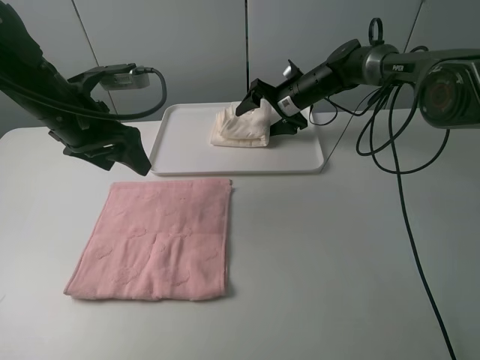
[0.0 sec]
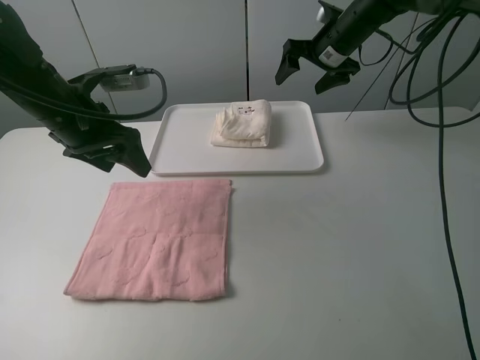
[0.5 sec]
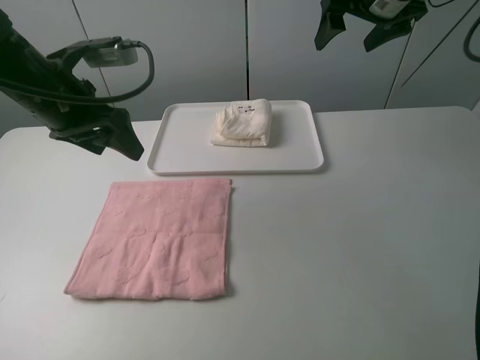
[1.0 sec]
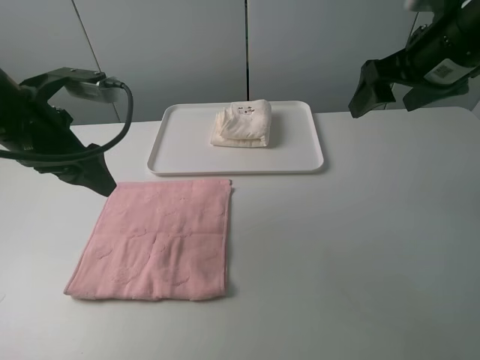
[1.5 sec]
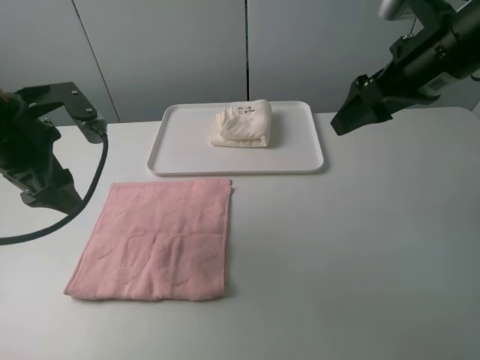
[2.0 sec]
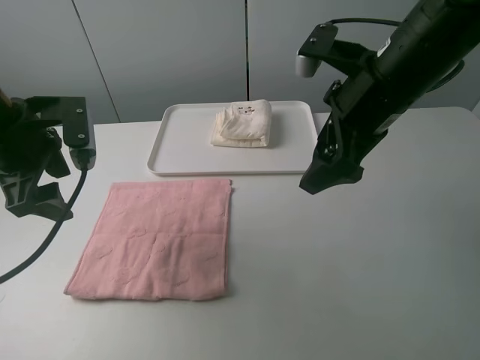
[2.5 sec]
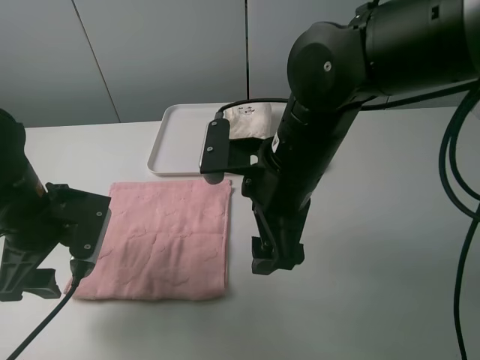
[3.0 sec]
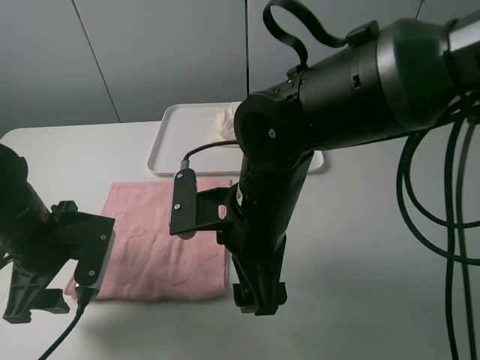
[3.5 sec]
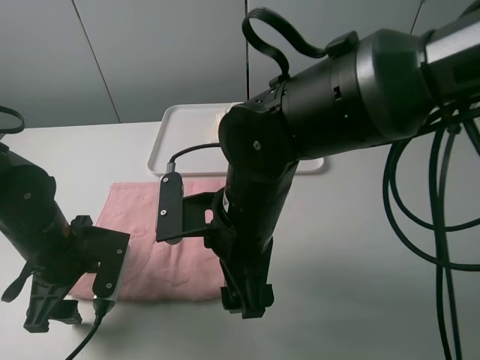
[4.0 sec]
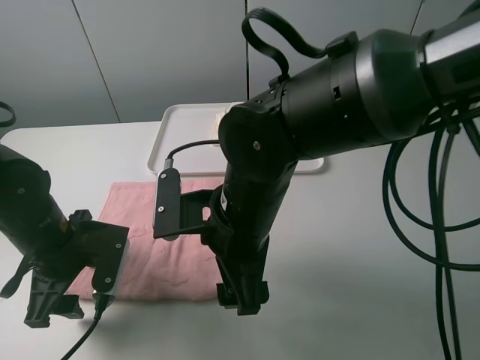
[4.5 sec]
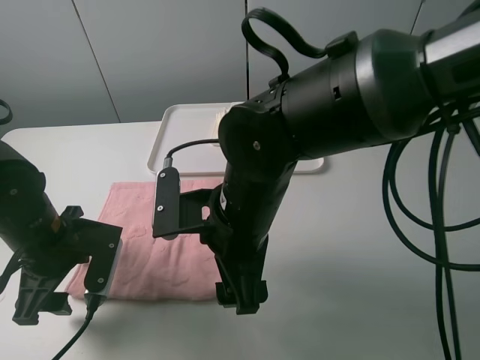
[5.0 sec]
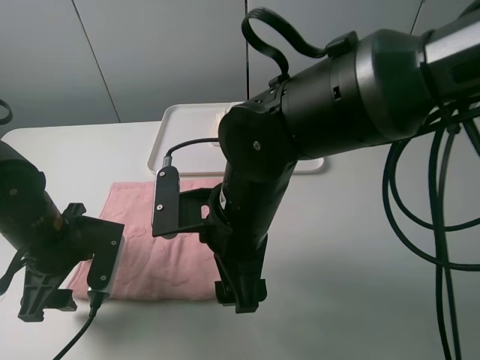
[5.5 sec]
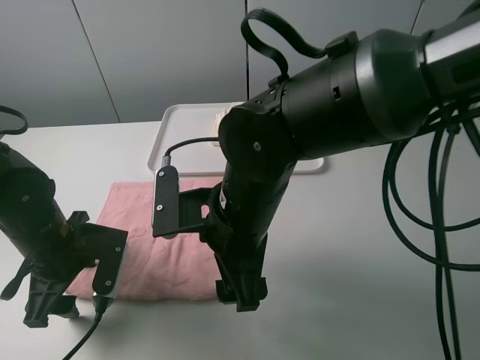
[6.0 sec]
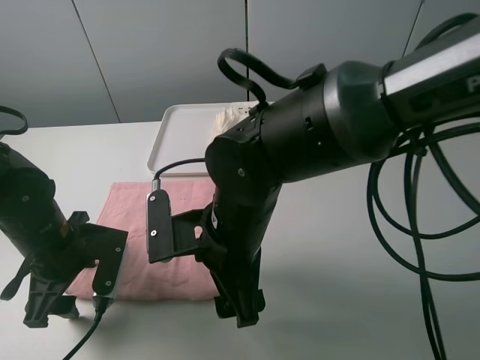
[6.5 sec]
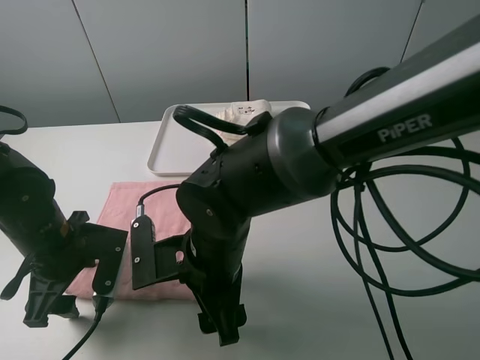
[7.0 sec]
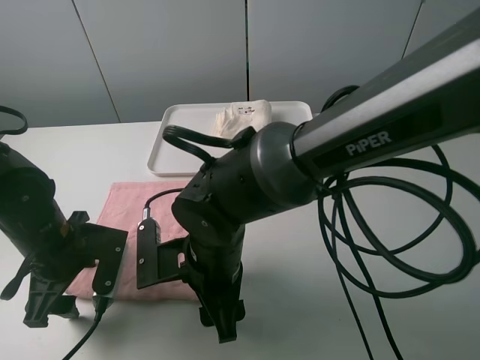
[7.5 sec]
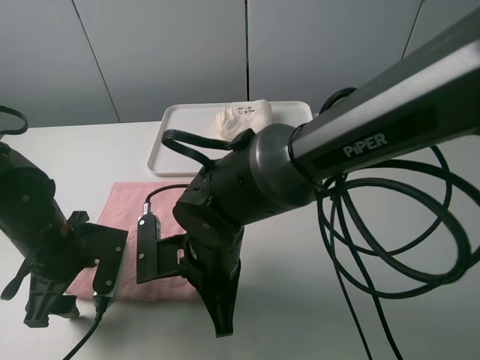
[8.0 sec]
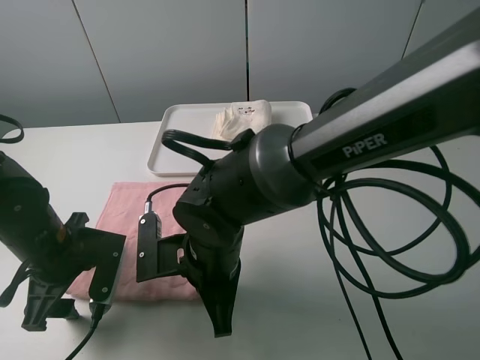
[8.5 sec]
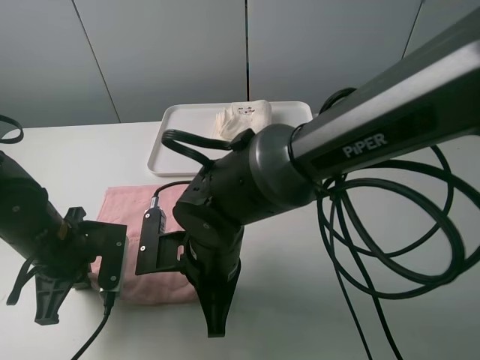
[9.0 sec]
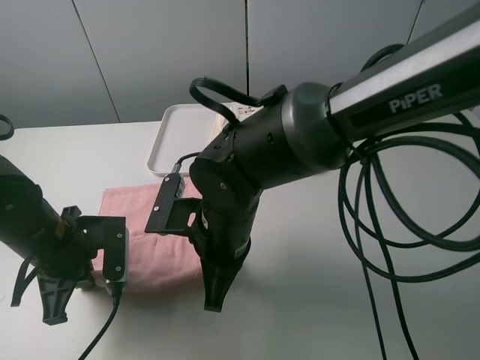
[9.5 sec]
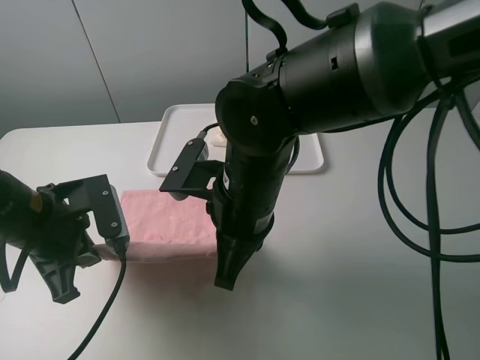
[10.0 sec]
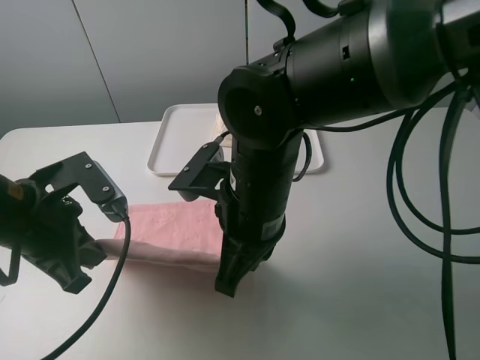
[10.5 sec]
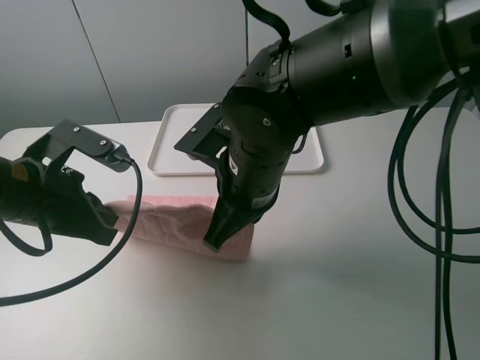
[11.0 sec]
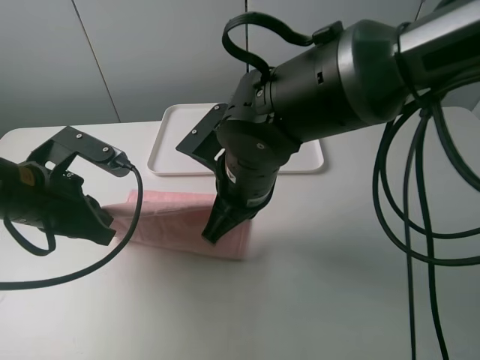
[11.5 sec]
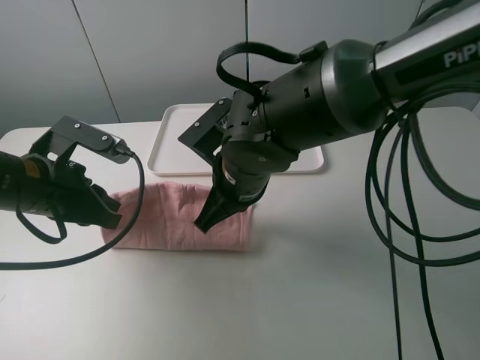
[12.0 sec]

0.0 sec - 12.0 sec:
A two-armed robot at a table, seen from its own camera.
Task of the whole recording: fold one of the towels by two grippers and place it on the tray,then fold another towel by two grippers and place it on the folded towel.
Step, 0.5 sec - 9.0 sec: Grasp the pink towel with the left gripper.
0.0 sec - 2.0 sec: The left gripper travels backward by about 5 cm; the right gripper shifts roughly 30 cm backward and upward.
2.0 sec - 4.0 sec: The left gripper is displaced downward and backward by some 15 cm, while the right gripper heads to the left, downward and backward, covering some 25 cm.
4.0 sec - 6.0 sec: The grippers stay close to where they were, moving slightly.
6.0 sec - 8.0 sec: The right gripper travels downward by roughly 5 cm, and closes its fingers.
8.0 sec - 10.0 sec: Both grippers travel together upward, roughly 5 cm. The left gripper closes its fingers.
10.0 sec - 12.0 sec: The right gripper shifts by approximately 5 cm.

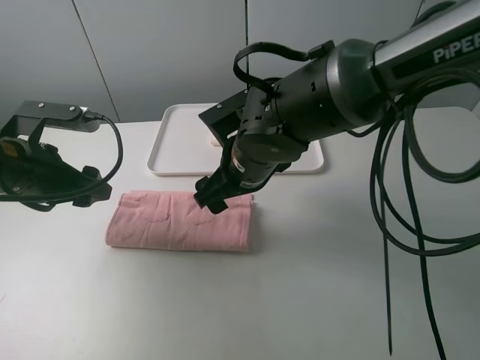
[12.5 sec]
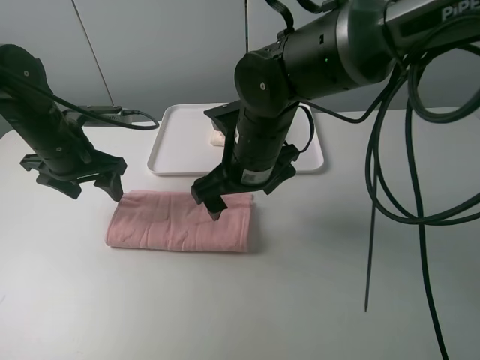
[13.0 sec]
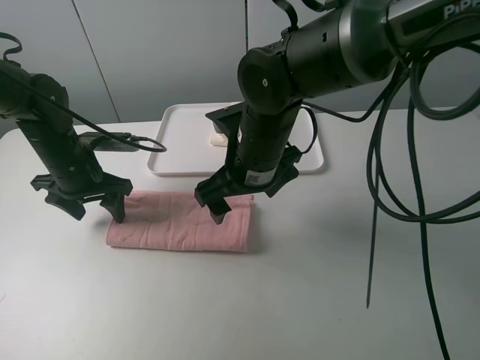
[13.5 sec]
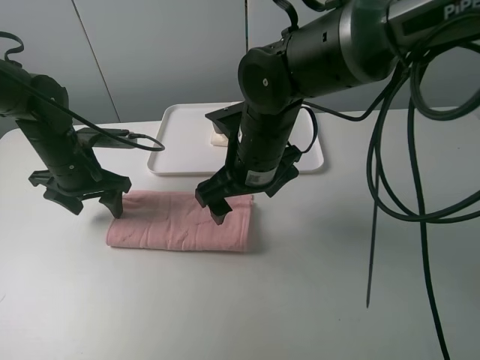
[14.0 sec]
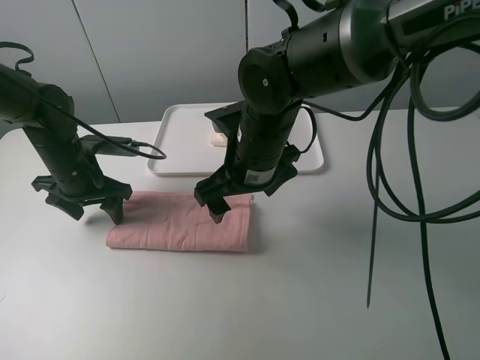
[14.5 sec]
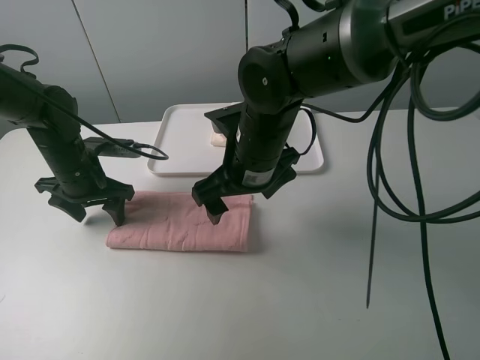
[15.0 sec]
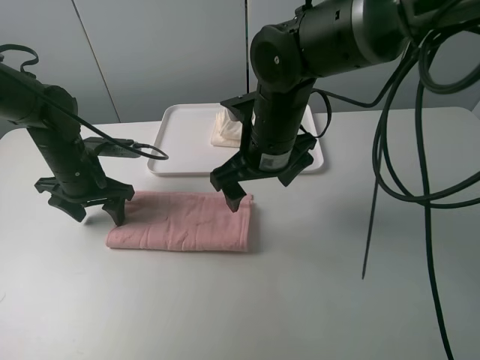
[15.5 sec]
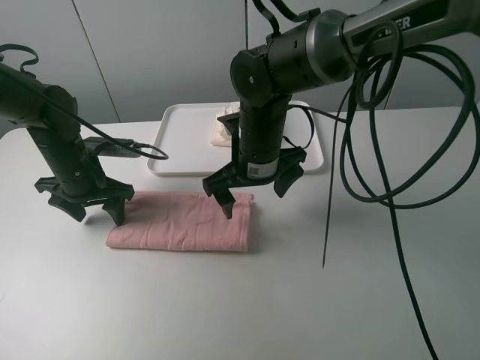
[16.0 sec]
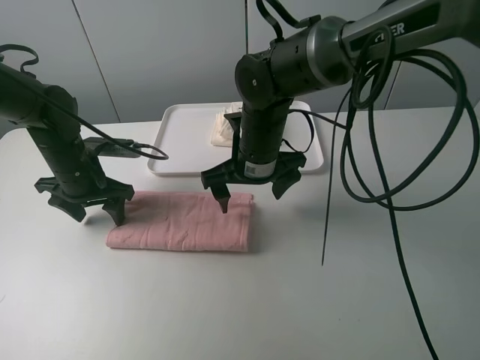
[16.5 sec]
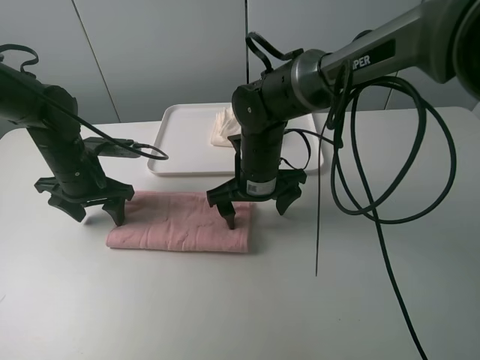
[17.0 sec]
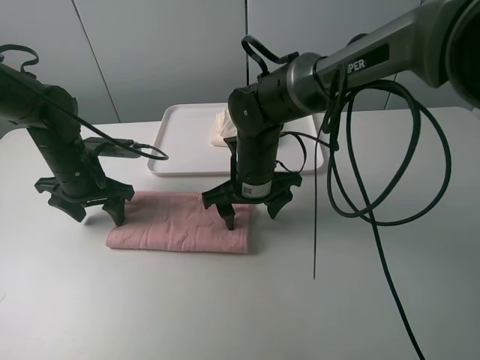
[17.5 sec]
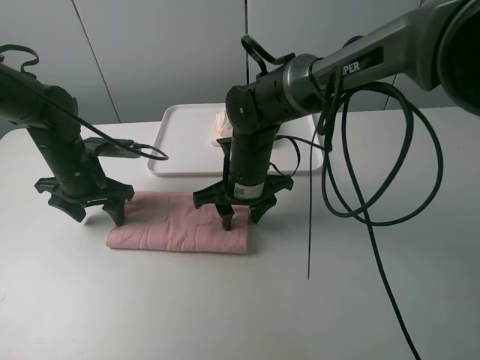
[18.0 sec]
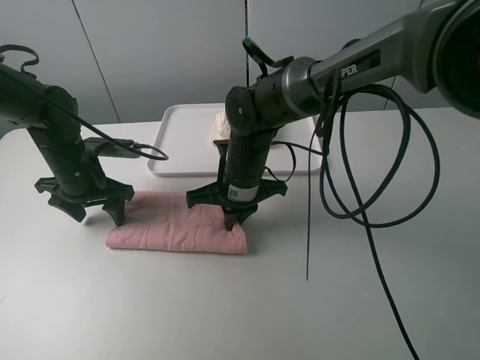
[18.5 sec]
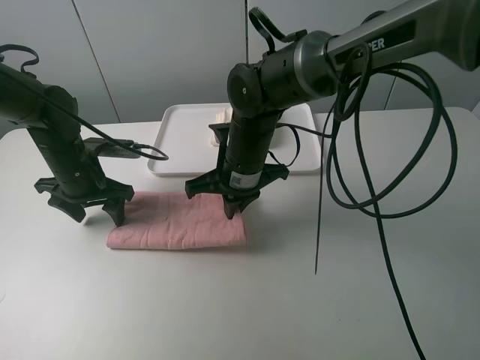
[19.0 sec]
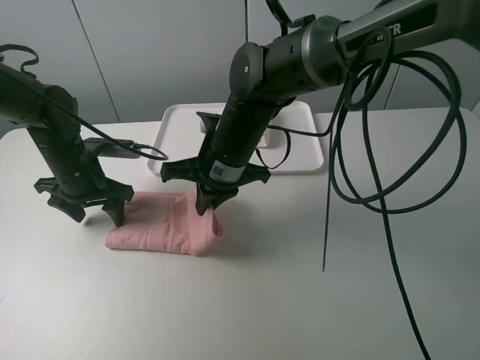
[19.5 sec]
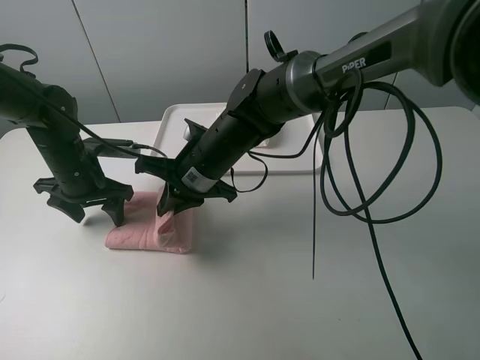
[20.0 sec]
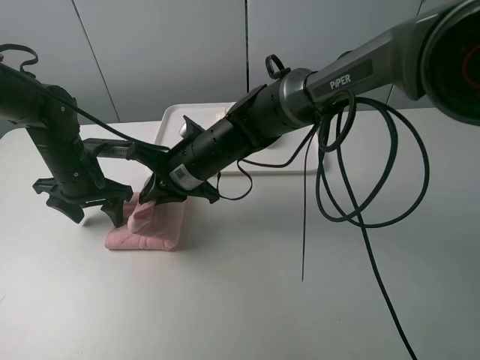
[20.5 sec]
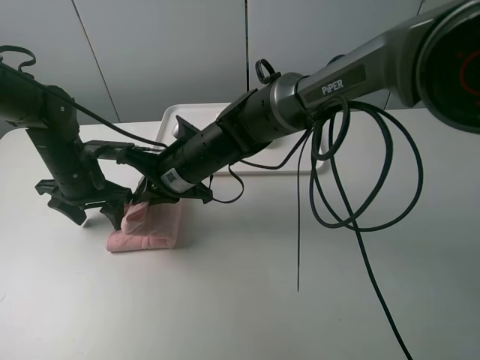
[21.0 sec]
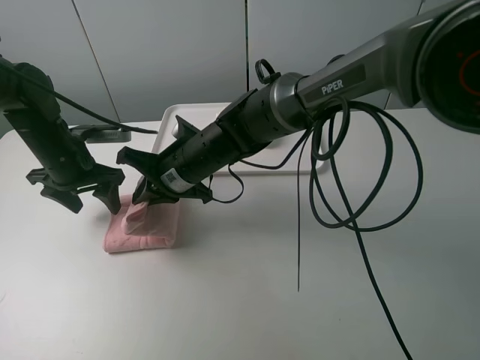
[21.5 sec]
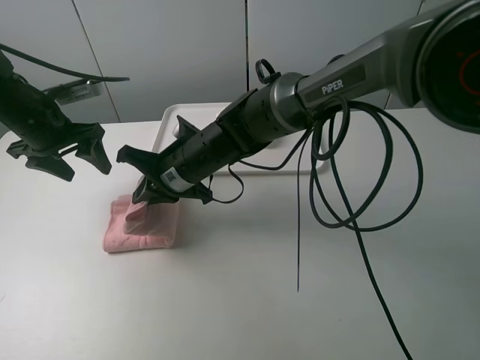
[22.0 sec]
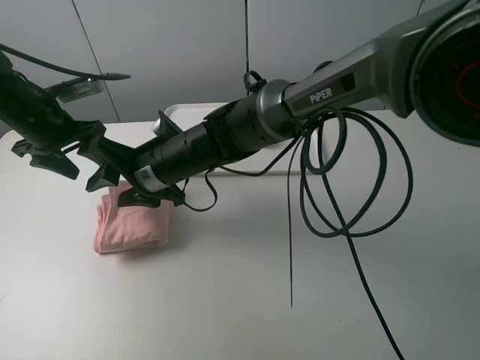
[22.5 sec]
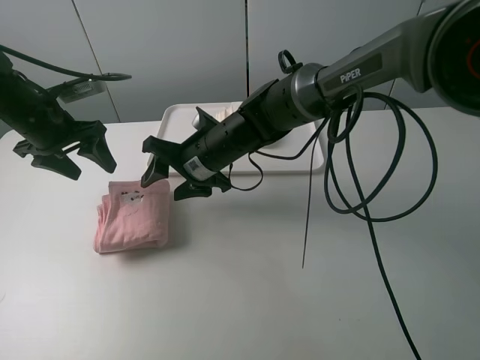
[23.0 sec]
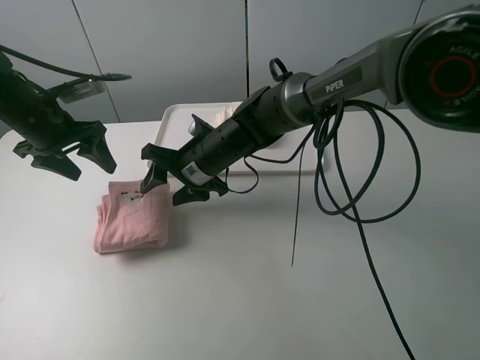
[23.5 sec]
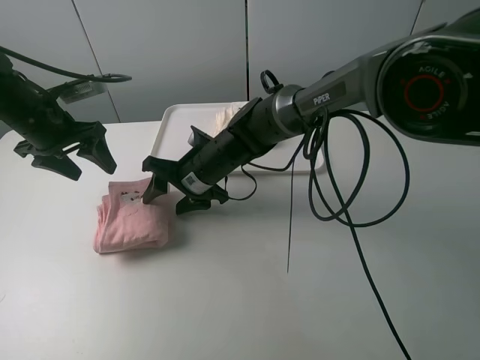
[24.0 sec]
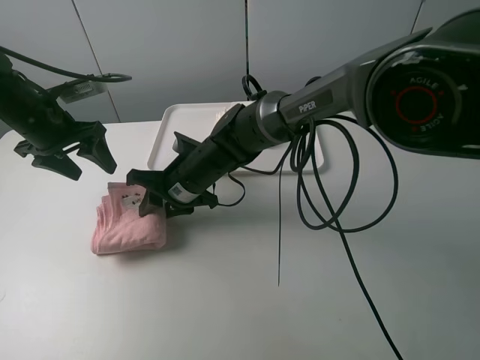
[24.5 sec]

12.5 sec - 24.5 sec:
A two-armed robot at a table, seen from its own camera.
Task of the whole recording: fold one of the towels by two grippers and place it on the tray,then fold another towel by two grippers and place it on the folded towel.
Step, 13.0 sec - 14.5 sec: Press the pink towel with the left gripper.
Step, 15.0 sec - 18.5 sec: Grasp the pink towel with the right gripper.
Step, 19.0 sec - 22.5 sec: Fold the pink towel from right to left with right gripper.
12.5 sec - 14.5 sec: The left gripper is displaced forward and downward by approximately 10 cm.
14.5 sec - 16.5 sec: The right gripper ends up some 5 cm from where it was.
16.5 sec - 18.5 sec: The right gripper closes.
18.5 sec - 20.5 sec: The right gripper is displaced to the left by about 5 cm.
20.5 sec - 22.5 sec: The left gripper shifts some 10 cm upward, while the right gripper opens.
22.5 sec - 24.5 sec: The right gripper travels downward by roughly 5 cm.

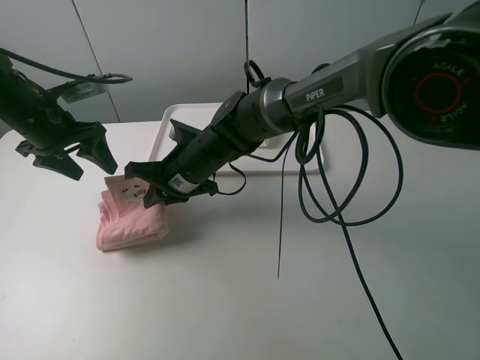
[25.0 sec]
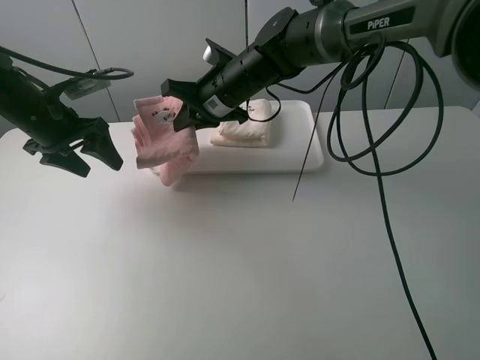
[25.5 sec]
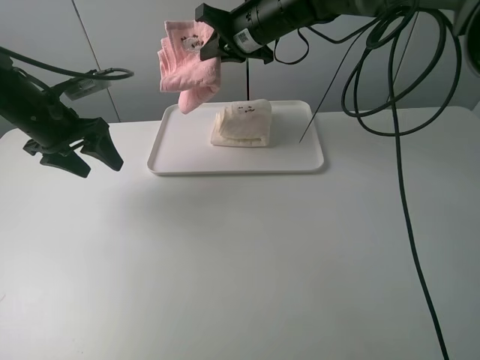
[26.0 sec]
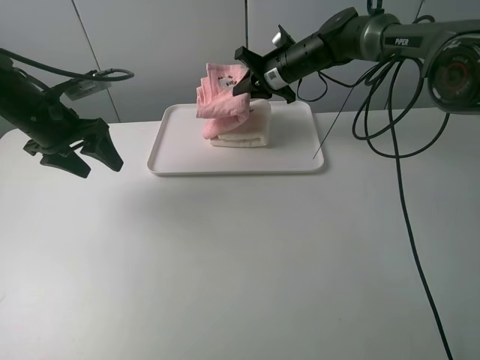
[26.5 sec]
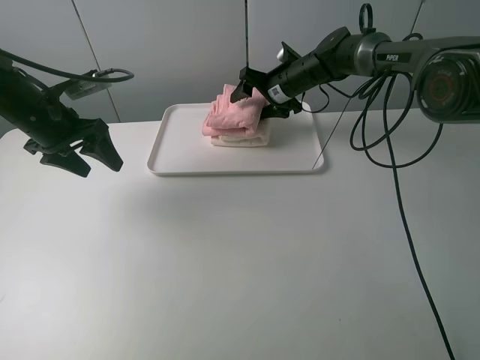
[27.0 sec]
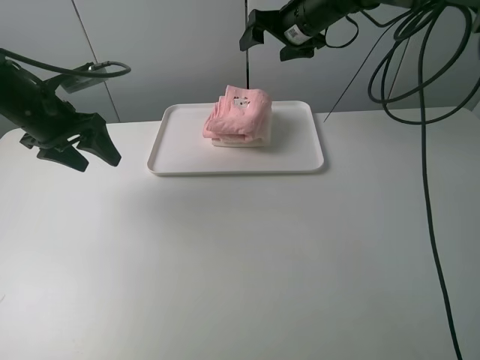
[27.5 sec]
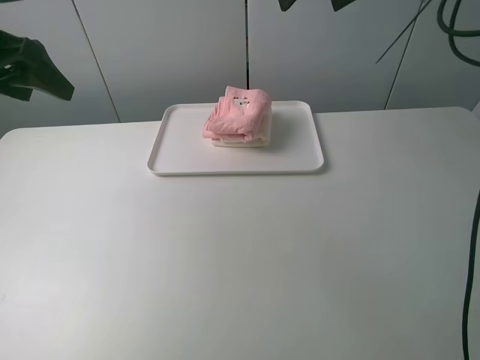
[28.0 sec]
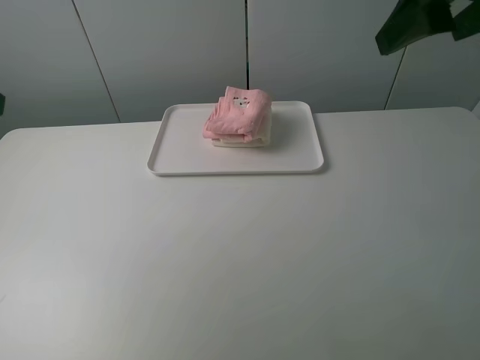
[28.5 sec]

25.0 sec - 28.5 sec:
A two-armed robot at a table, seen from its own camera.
Task of the whole recording: fold one of the towels by two grippers and place it on the tray,then fold another towel by two grippers and place it on the folded towel.
Step, 25.0 sec - 27.0 sec: Place the pink towel on the white towel with the right gripper.
25.0 sec - 27.0 sec: The right gripper shifts about 25 cm forward and to the right, and opens.
27.0 sec - 28.5 sec: The left gripper moves backward and upward, approximately 25 cm. The right gripper is displaced backward and upward by approximately 40 cm.
